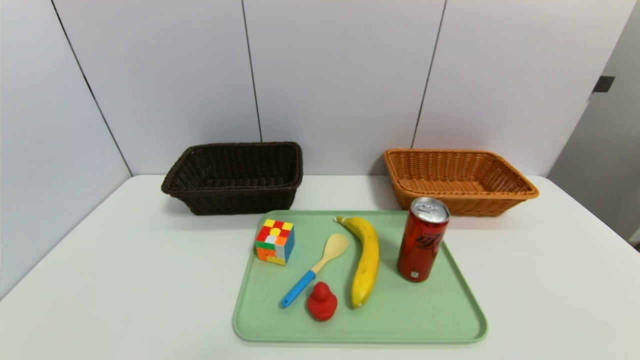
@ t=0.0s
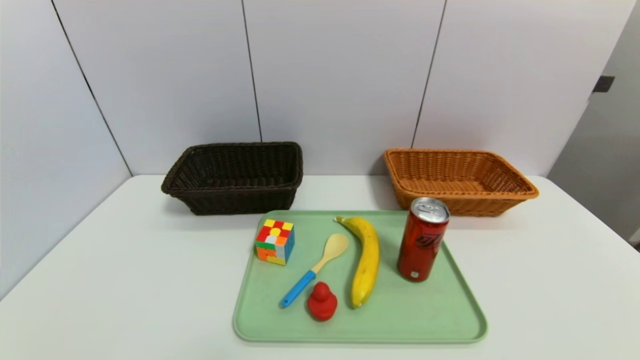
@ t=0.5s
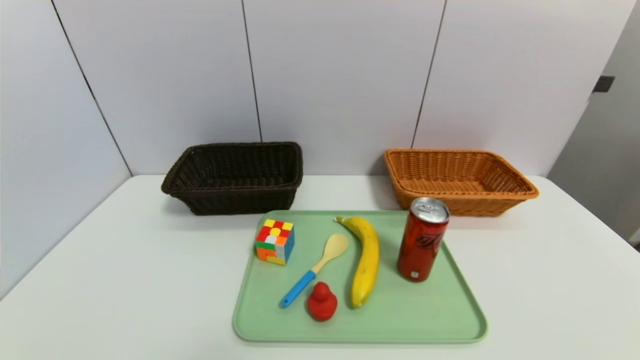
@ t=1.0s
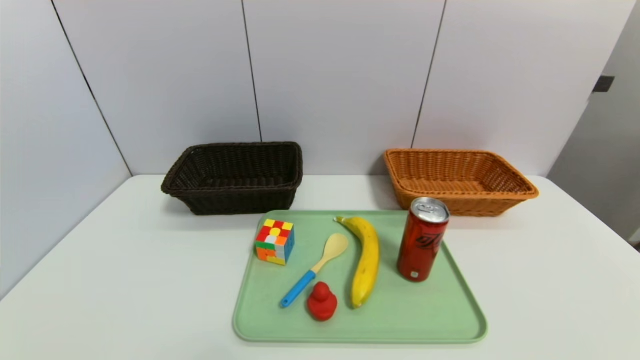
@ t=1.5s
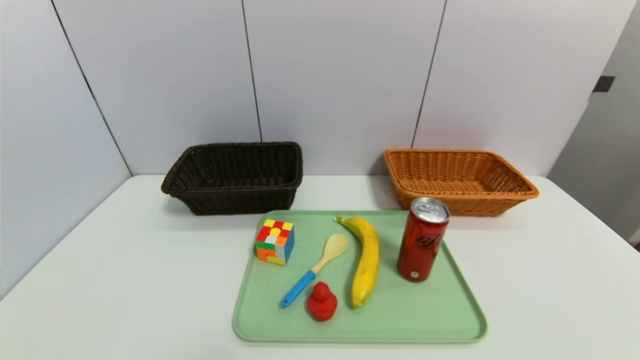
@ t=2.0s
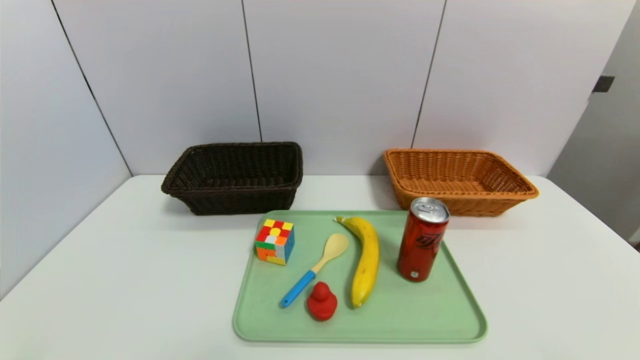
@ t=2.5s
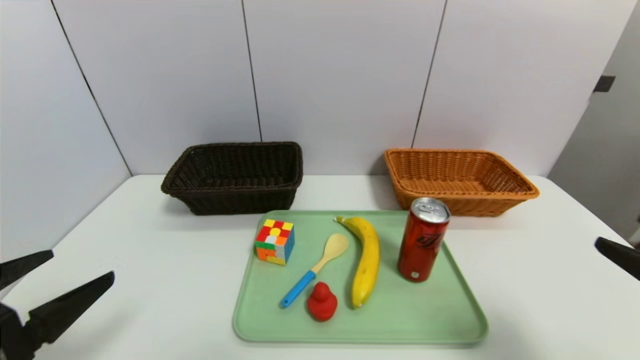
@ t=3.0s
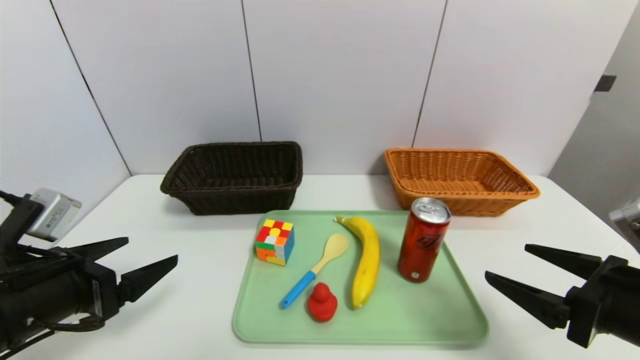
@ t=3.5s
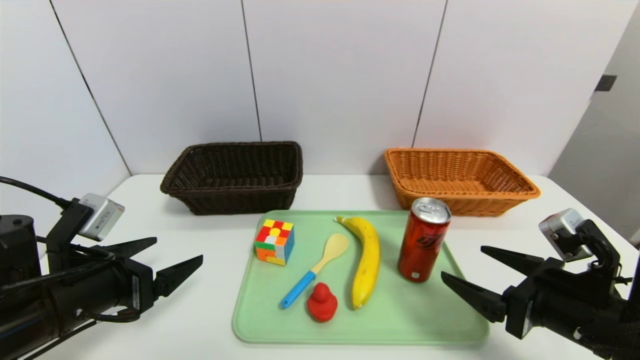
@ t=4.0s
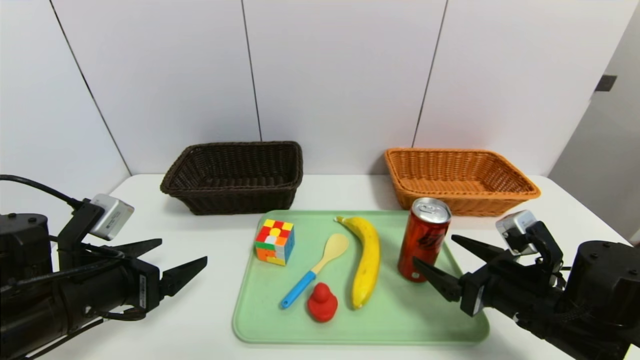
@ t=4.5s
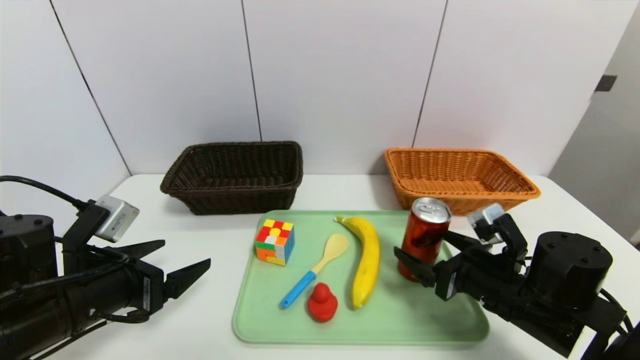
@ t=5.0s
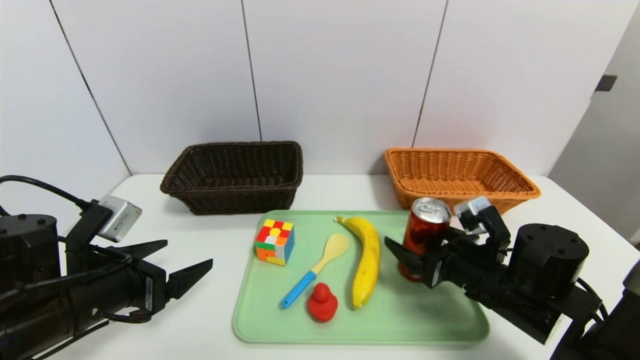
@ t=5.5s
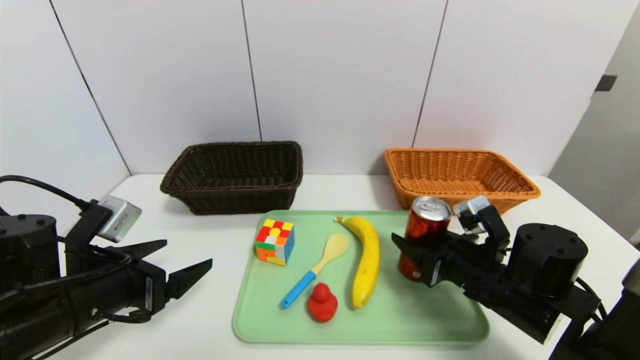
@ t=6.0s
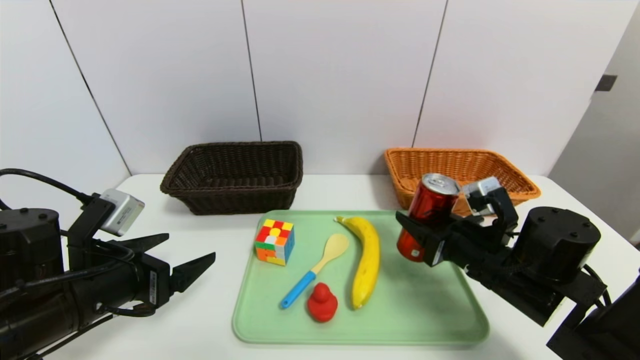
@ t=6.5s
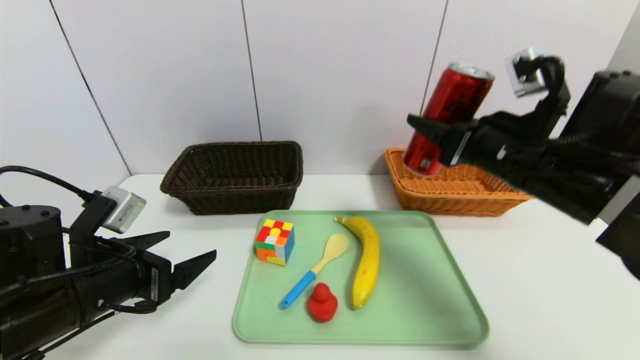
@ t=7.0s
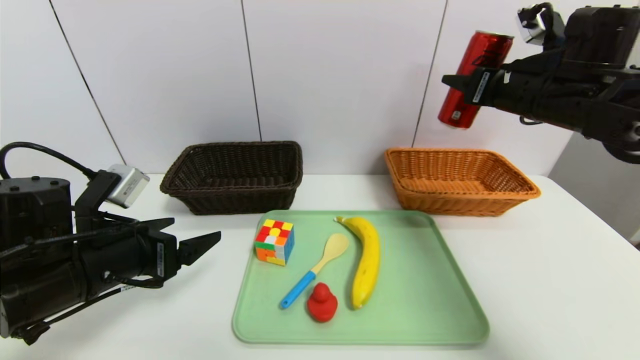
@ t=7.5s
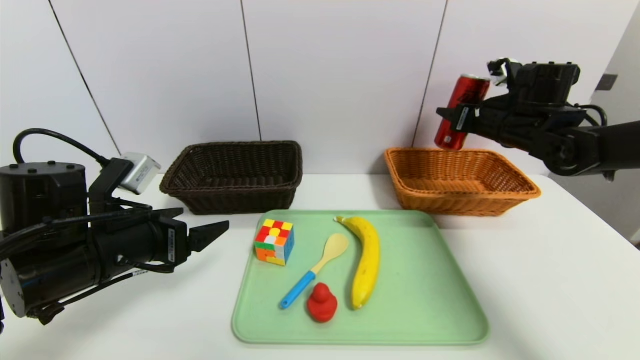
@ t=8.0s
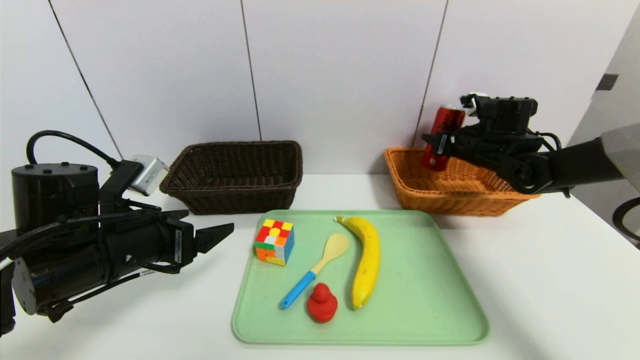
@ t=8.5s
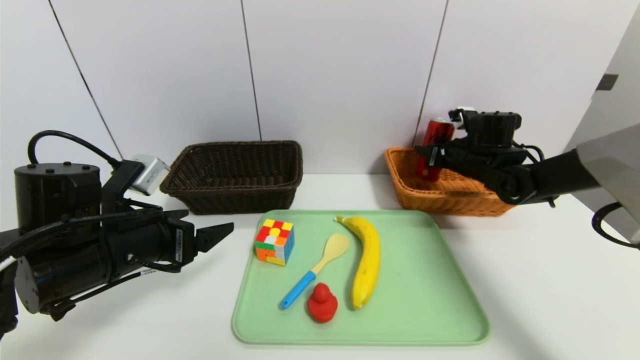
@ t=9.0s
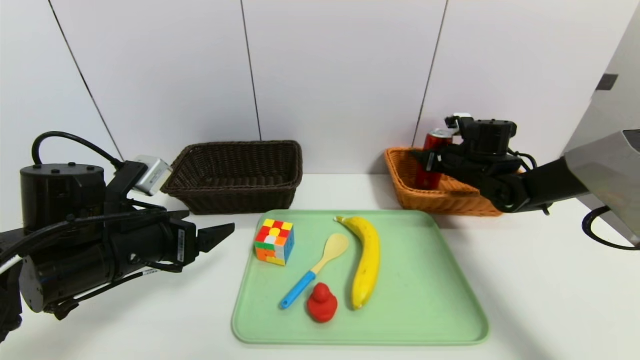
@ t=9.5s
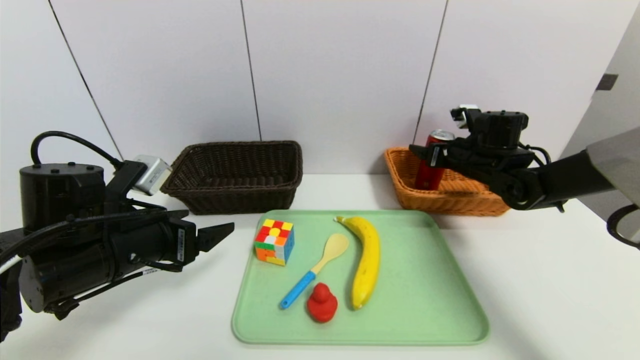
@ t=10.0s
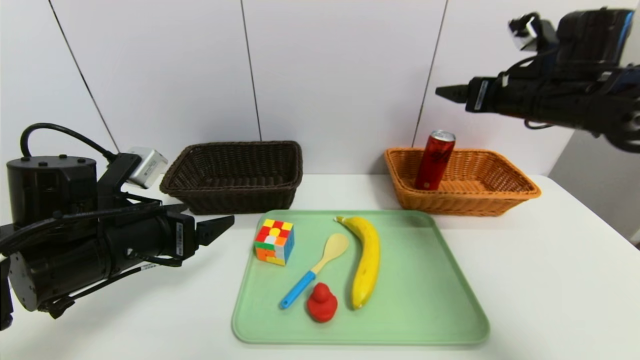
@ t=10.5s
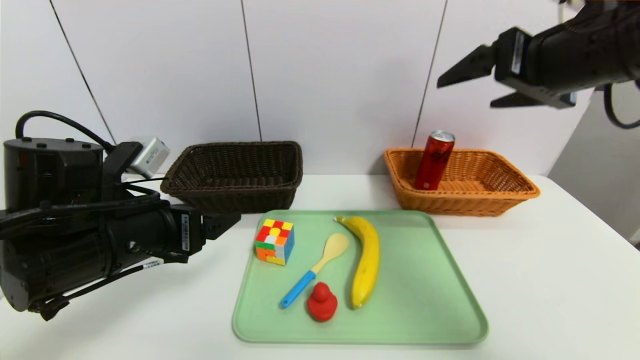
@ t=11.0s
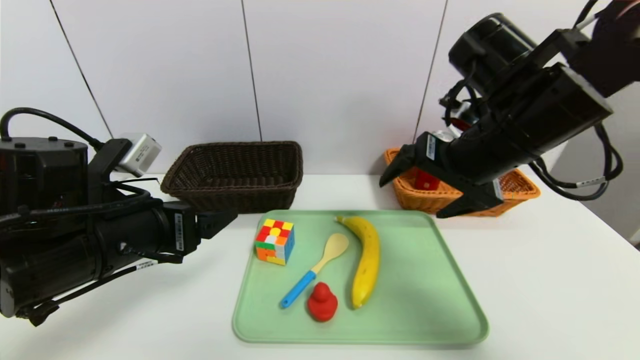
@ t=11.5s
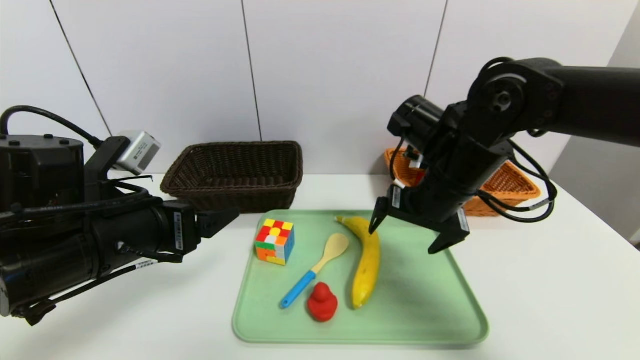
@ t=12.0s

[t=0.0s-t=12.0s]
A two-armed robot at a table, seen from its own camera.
Task of the whole recording: place the food in the right basket with the right gripper, and place the non food items in the left basket with the left gripper.
Step, t=0.0s to t=10.0s: Grasp the canned cola and put it in the right basket.
t=0.0s to t=2.0s: Both grippers stay put.
t=2.0s to t=4.0s: Both grippers travel together forward, approximately 20 cm.
t=4.0s to t=6.0s: The right gripper moves forward and to the left, approximately 10 cm, and closes up.
t=6.0s to t=8.0s: The right gripper goes about 25 cm forward, upward and to the right; the left gripper moves approximately 5 cm.
t=8.0s to t=10.0s: The right gripper shifts roughly 10 cm downward, and opens up.
t=10.0s to t=12.0s: The right gripper heads backward and to the left, covering some 20 cm, and travels upward and back again, about 20 cm each way. Meanwhile the left gripper changes place by some 5 cm.

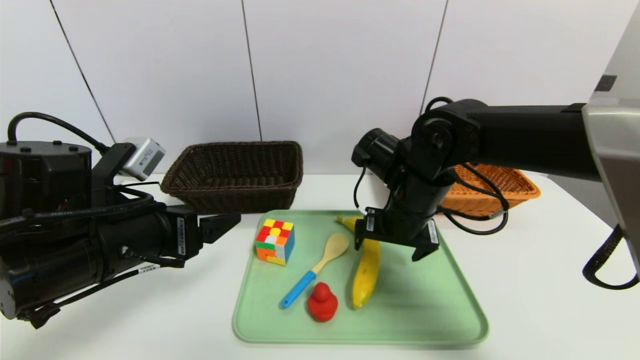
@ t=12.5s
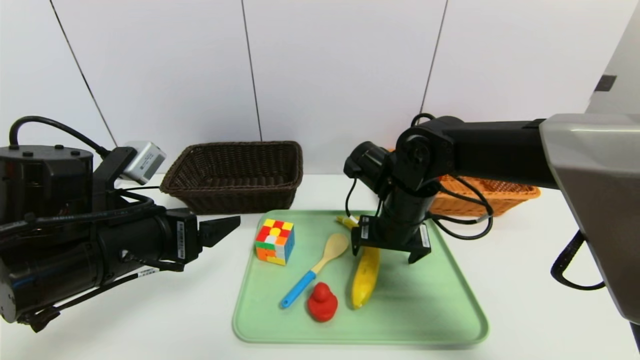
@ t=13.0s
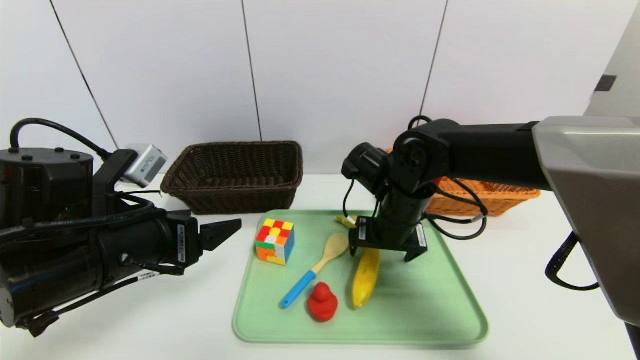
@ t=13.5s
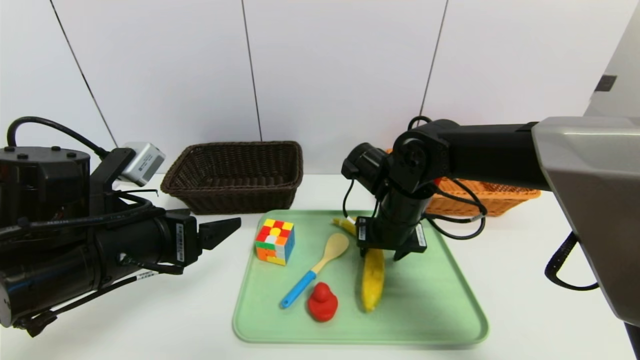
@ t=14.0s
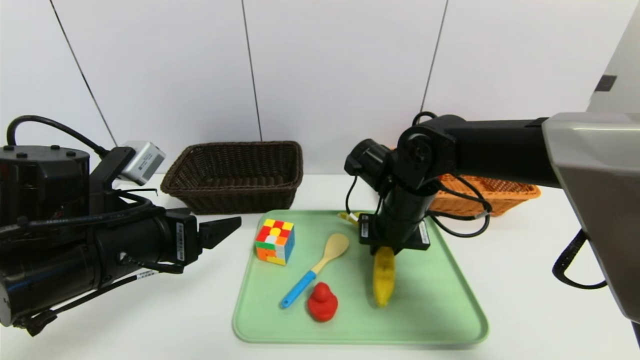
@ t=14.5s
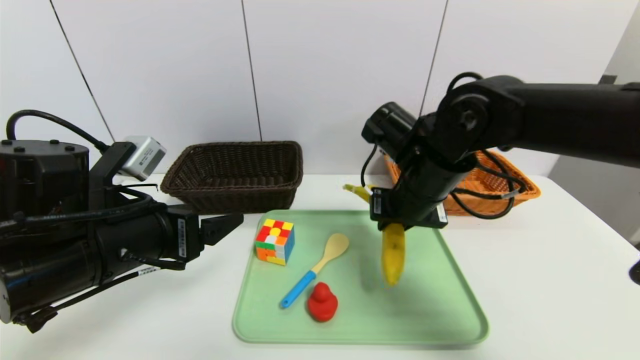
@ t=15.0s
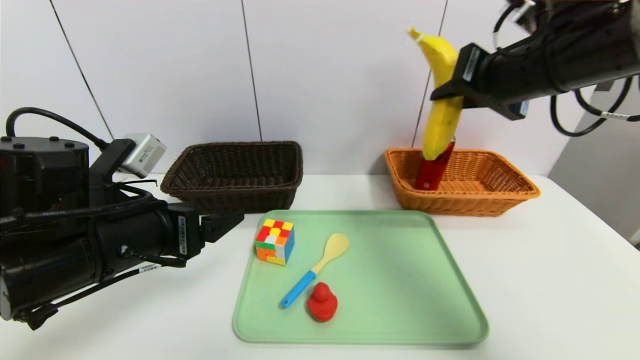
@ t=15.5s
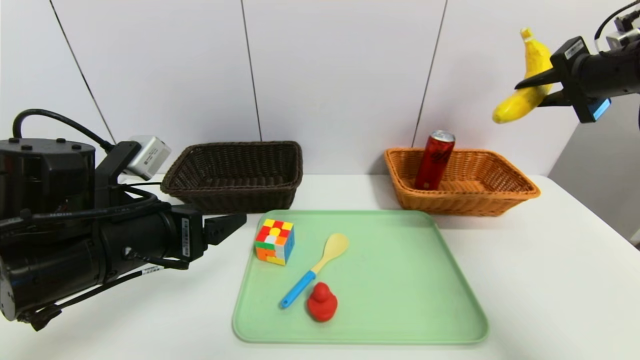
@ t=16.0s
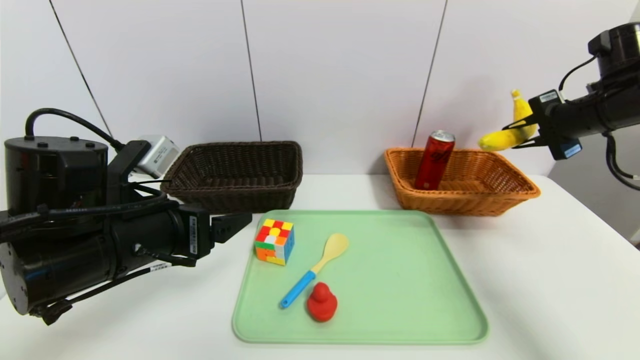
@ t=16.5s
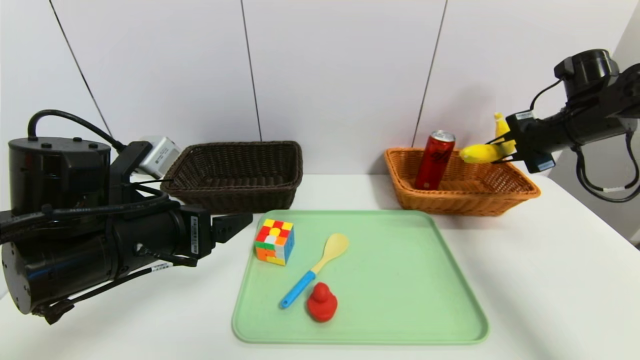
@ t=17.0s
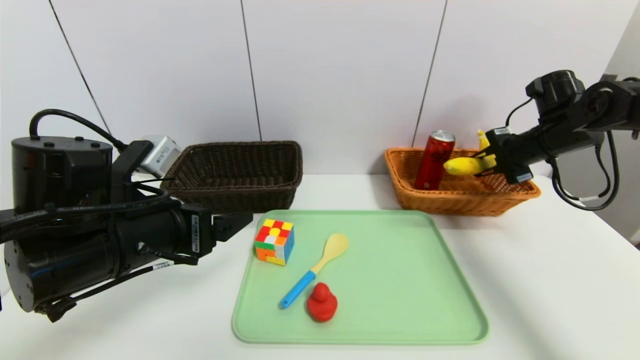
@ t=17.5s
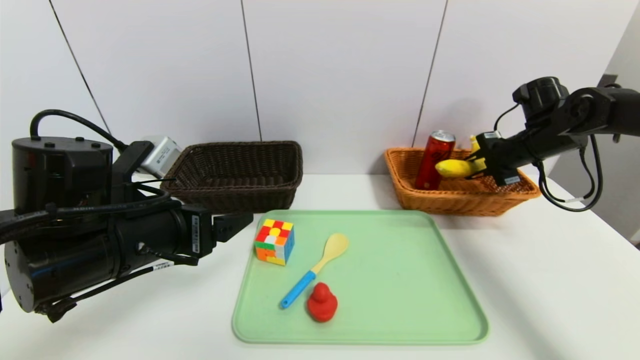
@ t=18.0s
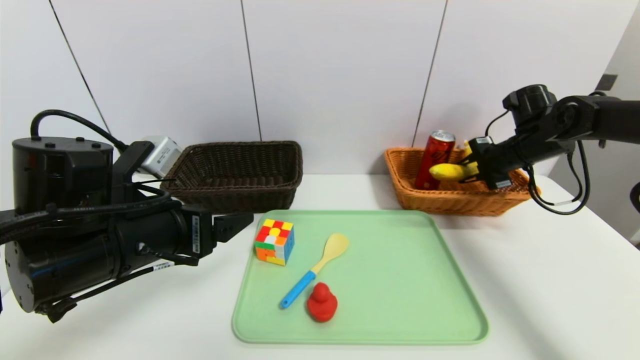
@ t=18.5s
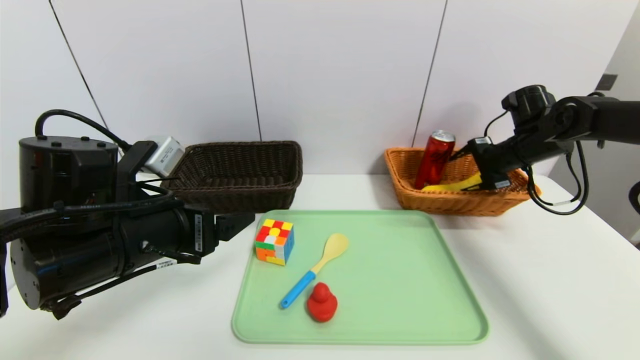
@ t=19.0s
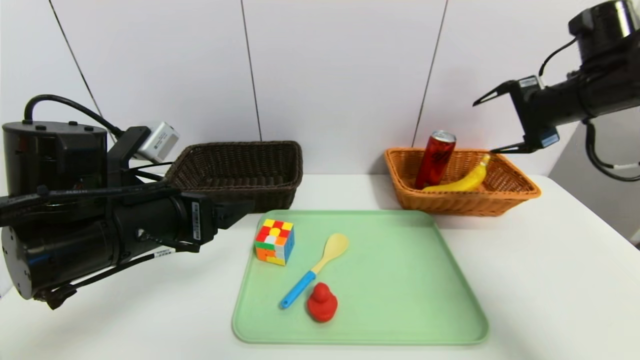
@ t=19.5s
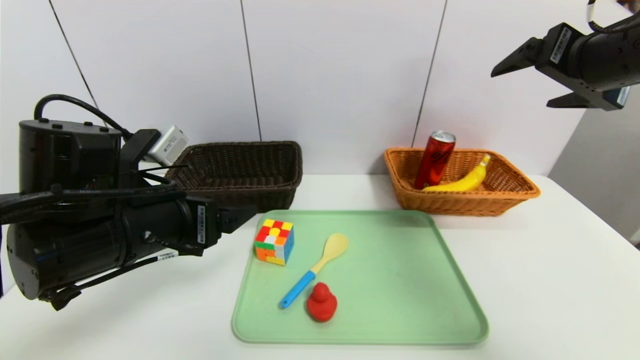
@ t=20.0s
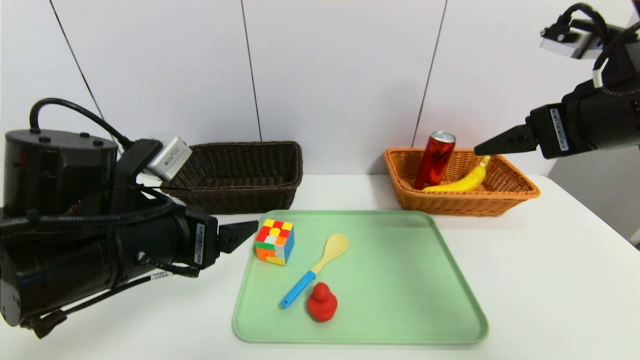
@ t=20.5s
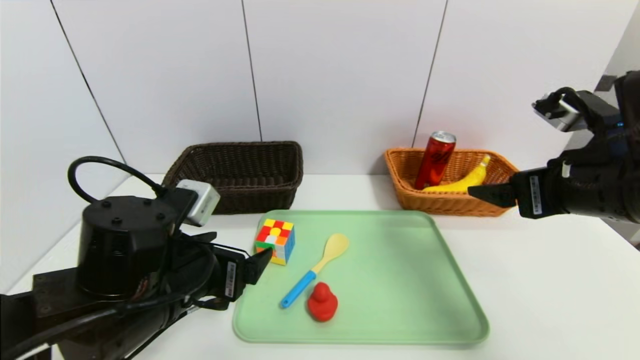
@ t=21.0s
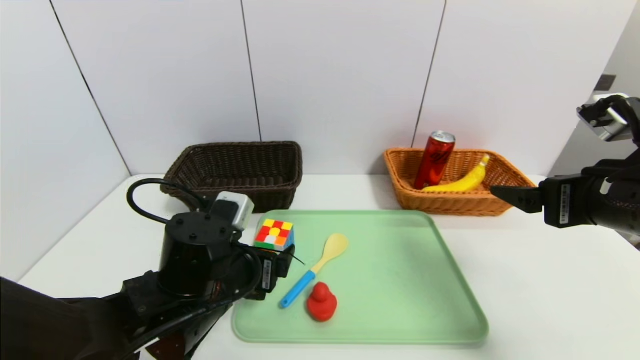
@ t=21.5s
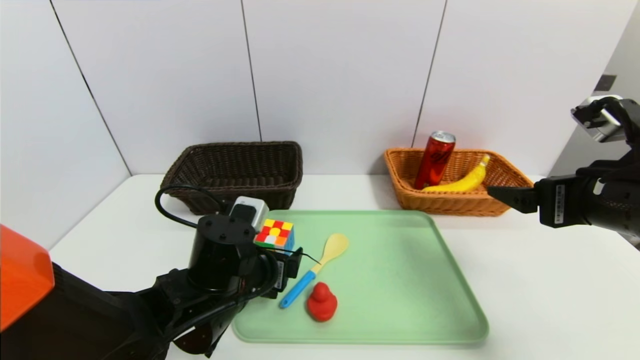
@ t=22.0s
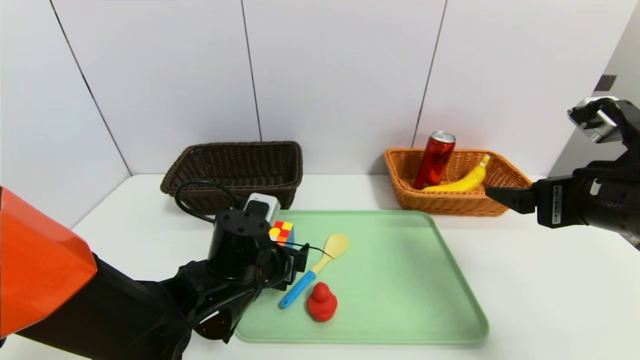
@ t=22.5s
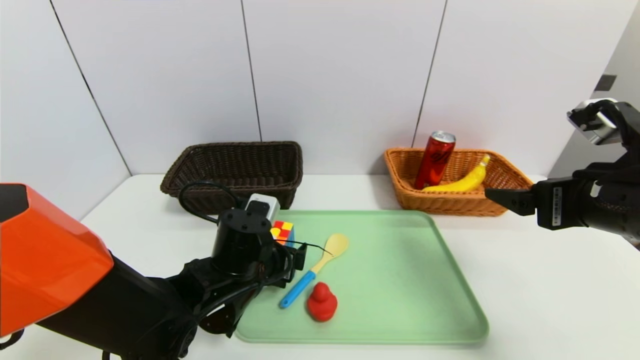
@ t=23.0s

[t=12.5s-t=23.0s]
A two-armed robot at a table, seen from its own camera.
Task of the whole recording: place the food in the right basket with the right gripper, and place the non food items in the left basket with the left gripper.
Step, t=12.5s to t=19.0s: Grasp the banana and put it in the right basket.
t=12.5s to t=14.5s: The right gripper closes its fingers.
t=14.5s to t=16.5s: The right gripper is displaced to the right and upward by about 30 cm.
t=16.5s to t=19.0s: The right gripper is displaced downward and forward by about 10 cm, and opens its fingers.
t=19.0s to t=21.0s: The left gripper changes place by roughly 5 cm. The right gripper shifts approximately 25 cm backward.
t=21.0s to t=23.0s: The left gripper heads forward, downward and to the right, covering some 10 cm.
